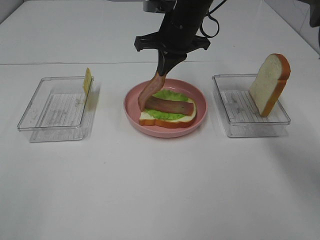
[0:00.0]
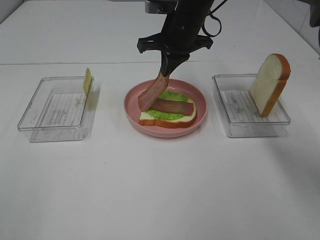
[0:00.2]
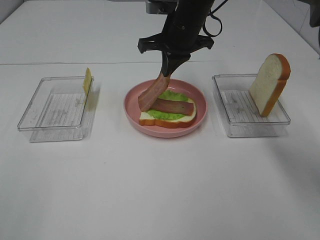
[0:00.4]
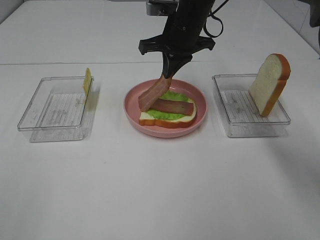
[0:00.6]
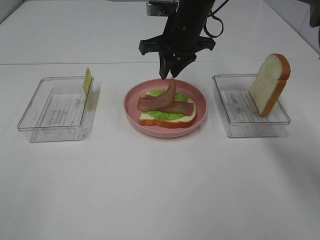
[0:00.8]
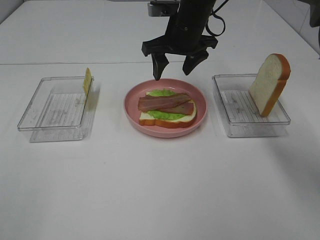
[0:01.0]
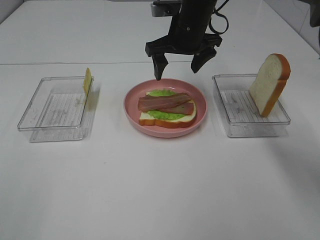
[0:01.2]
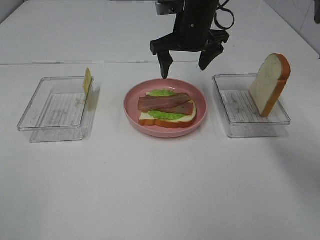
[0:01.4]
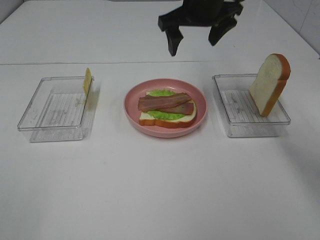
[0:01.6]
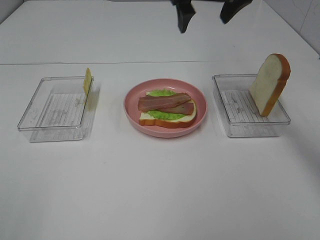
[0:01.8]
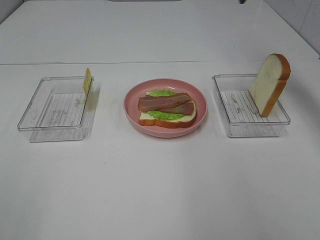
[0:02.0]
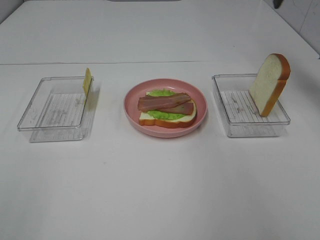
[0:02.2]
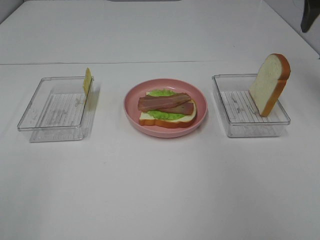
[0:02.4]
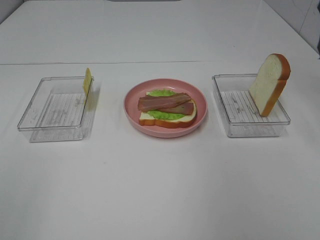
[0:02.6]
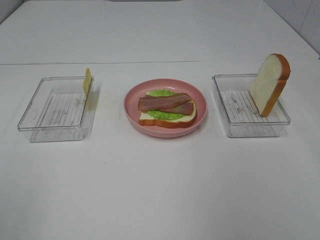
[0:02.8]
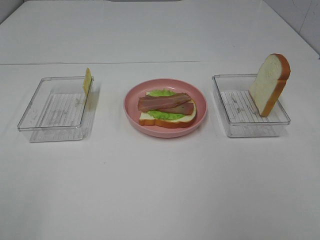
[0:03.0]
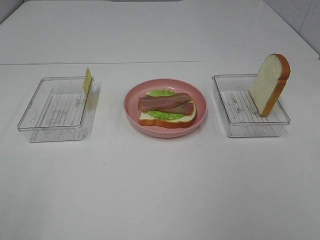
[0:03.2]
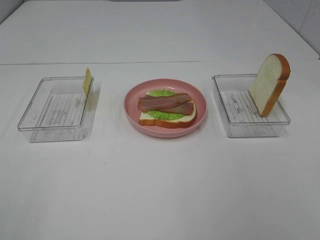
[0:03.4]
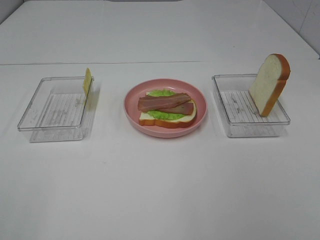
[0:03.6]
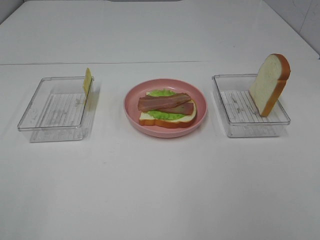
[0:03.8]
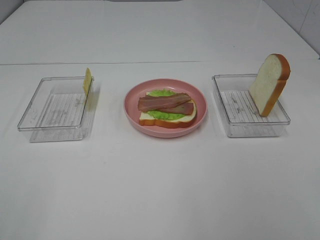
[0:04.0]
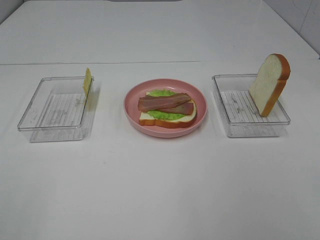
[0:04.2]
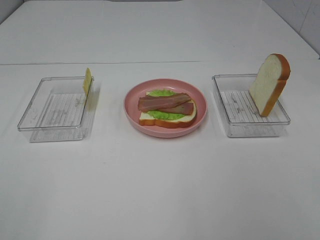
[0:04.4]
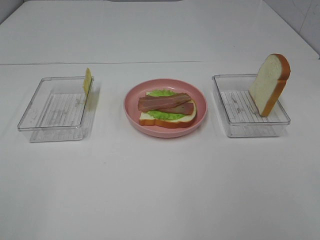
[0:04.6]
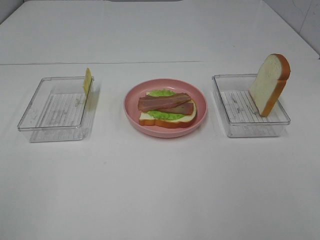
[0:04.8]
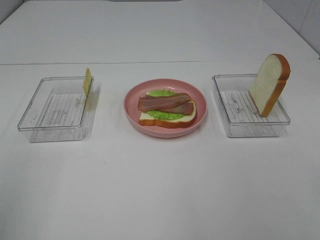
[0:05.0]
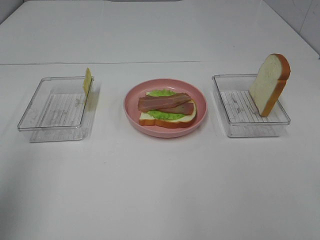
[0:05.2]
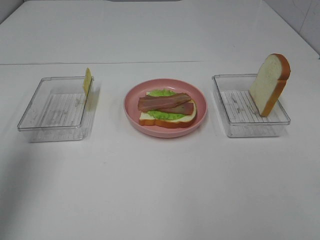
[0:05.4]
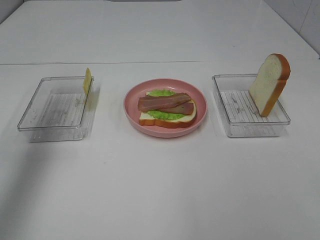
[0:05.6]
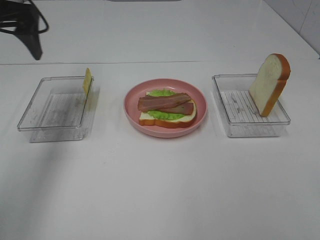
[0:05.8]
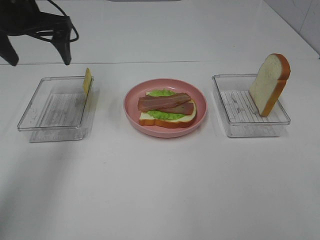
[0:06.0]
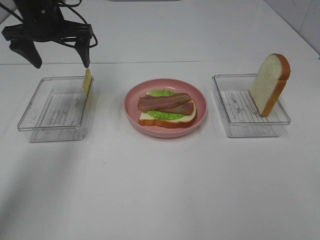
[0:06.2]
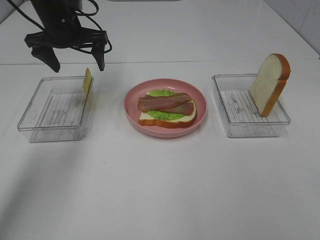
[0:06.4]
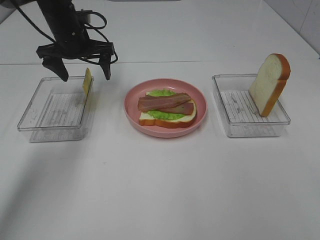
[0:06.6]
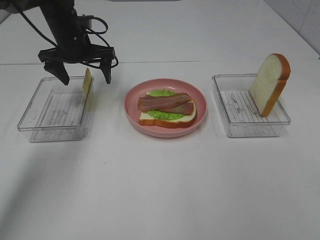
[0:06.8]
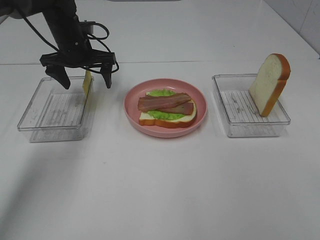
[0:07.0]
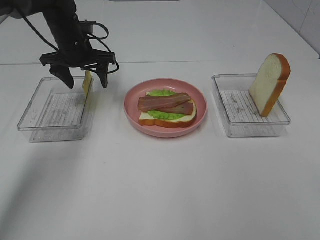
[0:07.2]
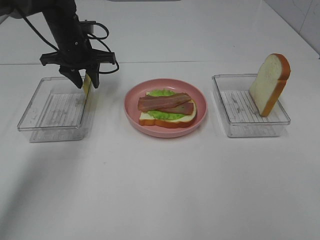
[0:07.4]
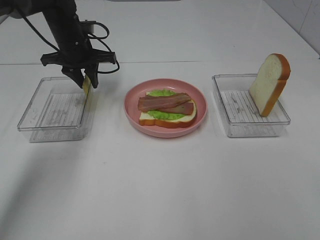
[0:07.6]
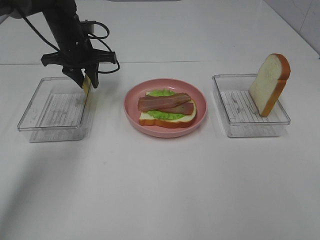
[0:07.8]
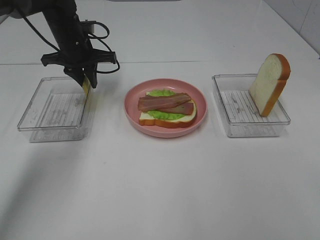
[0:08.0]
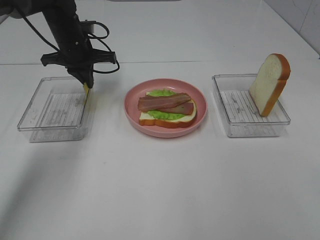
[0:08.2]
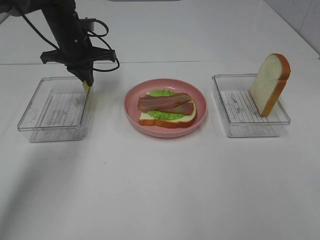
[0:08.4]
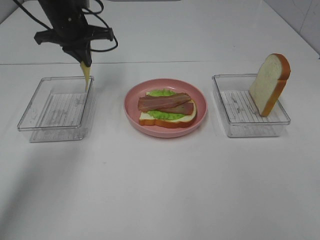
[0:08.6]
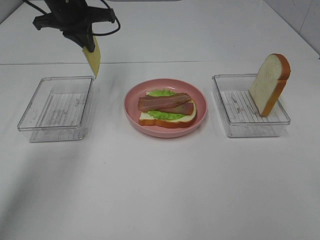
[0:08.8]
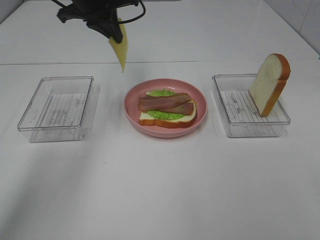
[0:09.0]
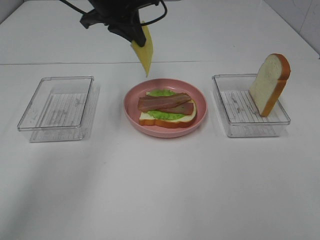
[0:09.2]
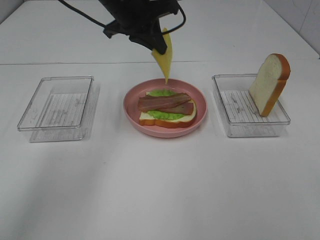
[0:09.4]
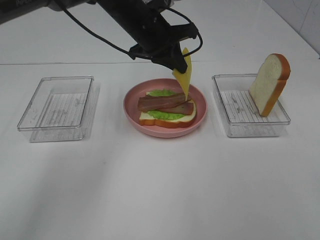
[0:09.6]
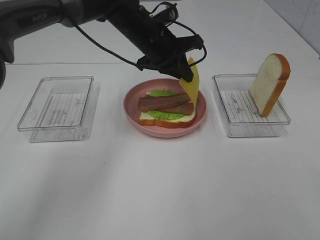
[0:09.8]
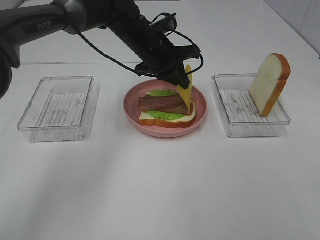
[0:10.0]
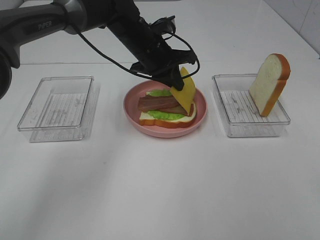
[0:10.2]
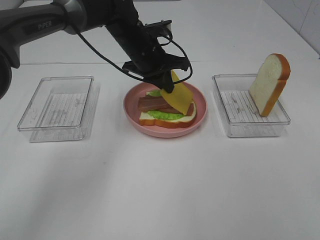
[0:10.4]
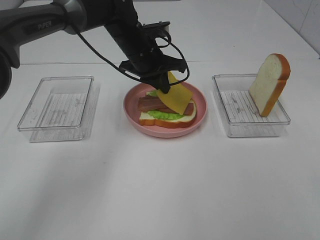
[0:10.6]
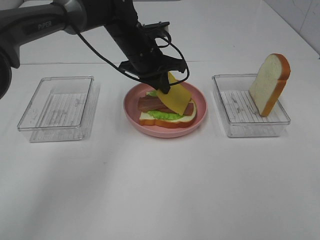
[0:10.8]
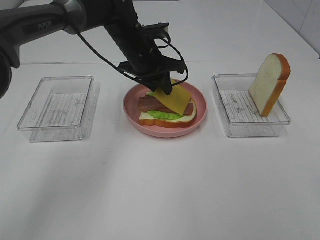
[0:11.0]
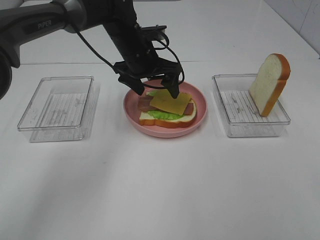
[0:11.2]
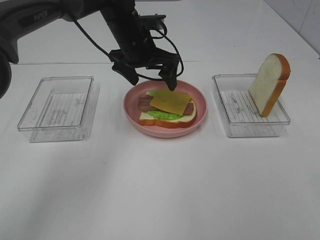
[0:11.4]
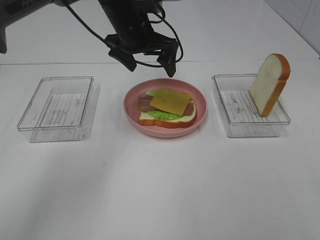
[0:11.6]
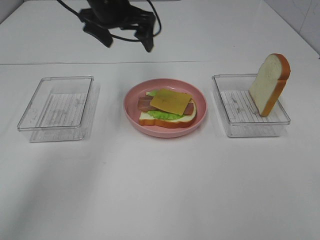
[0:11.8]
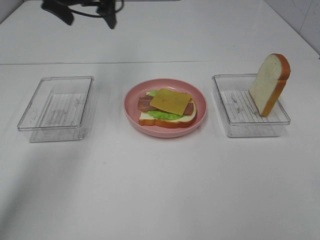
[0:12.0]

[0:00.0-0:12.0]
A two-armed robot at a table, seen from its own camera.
Task of the whole recording: Make sandwiches.
Step, 0:01.6 to 0:08.4: Left hand:grab the cheese slice.
Step, 0:08.6 to 0:11.4: Left hand:place the cheese slice on top of the bacon.
0:00.0 to 0:01.6: The right gripper goes roughly 5 cm upward, and opens up.
0:01.6 to 0:03.0: The right gripper goes about 40 cm backward and to the right.
0:04.4 to 0:06.0: The left gripper travels forward by roughly 40 cm.
0:06.0 to 0:07.6: The left gripper is displaced downward and forward by roughly 10 cm, and closes up.
0:07.6 to 0:09.0: The left gripper shifts about 15 cm upward and to the right.
0:09.0 to 0:10.4: The left gripper heads downward and to the right, covering about 15 cm.
0:10.4 to 0:12.0: The left gripper heads to the left and upward, covering some 20 cm, and opens up.

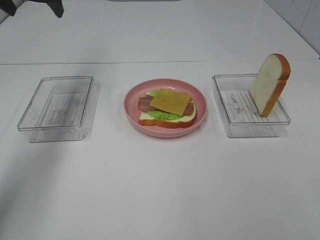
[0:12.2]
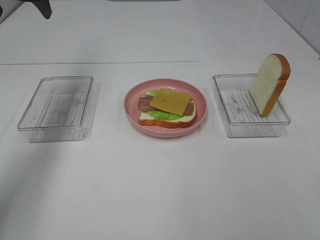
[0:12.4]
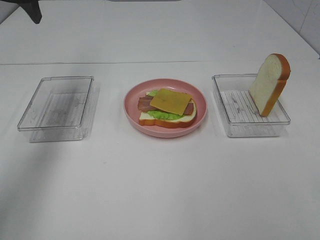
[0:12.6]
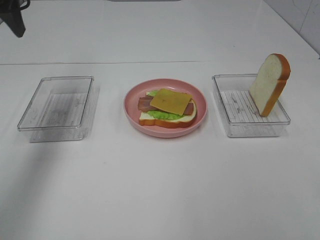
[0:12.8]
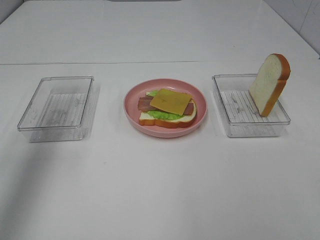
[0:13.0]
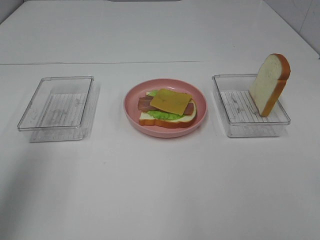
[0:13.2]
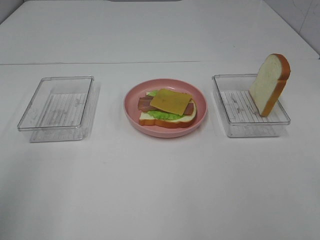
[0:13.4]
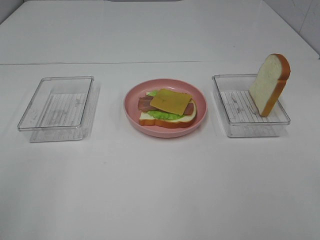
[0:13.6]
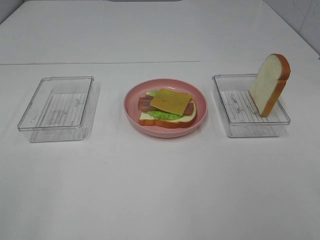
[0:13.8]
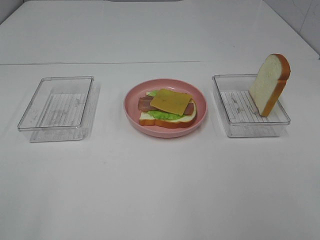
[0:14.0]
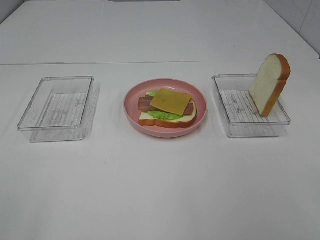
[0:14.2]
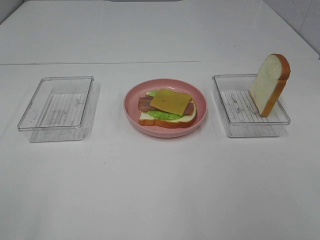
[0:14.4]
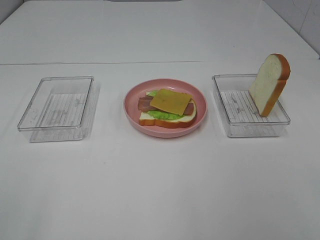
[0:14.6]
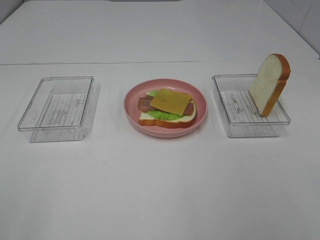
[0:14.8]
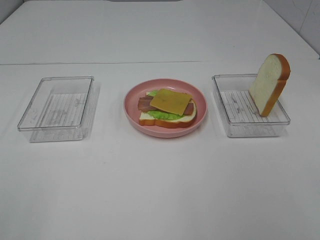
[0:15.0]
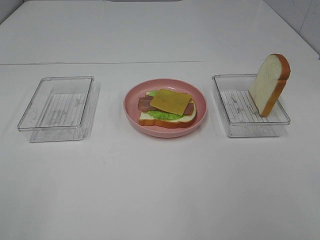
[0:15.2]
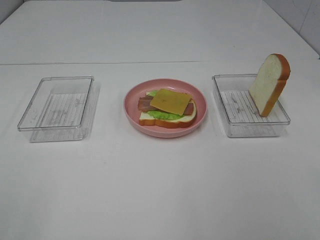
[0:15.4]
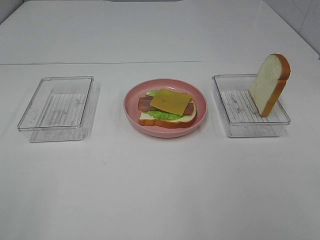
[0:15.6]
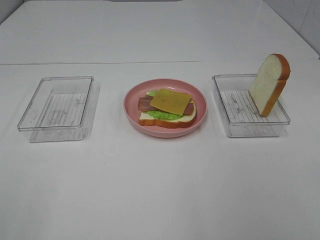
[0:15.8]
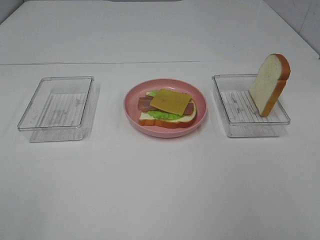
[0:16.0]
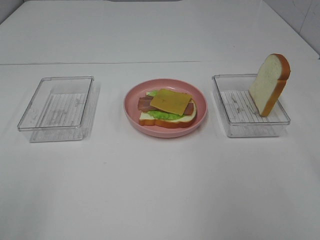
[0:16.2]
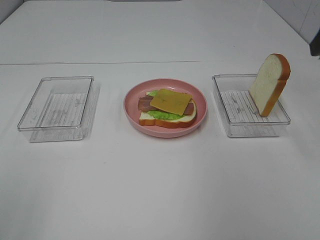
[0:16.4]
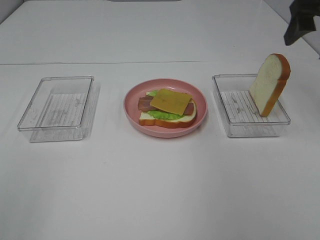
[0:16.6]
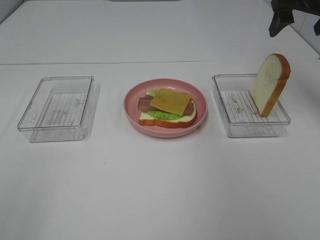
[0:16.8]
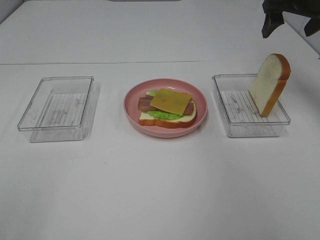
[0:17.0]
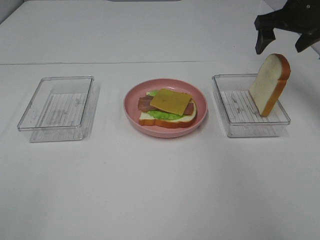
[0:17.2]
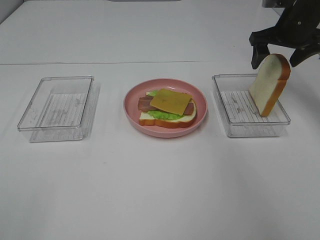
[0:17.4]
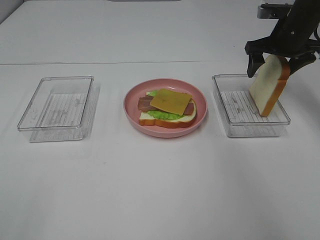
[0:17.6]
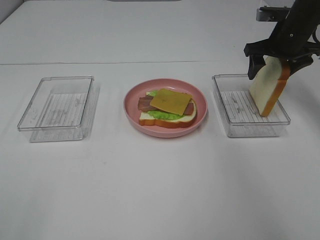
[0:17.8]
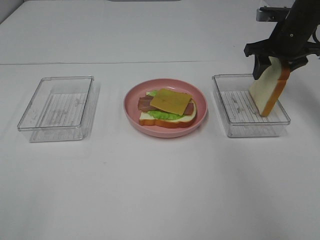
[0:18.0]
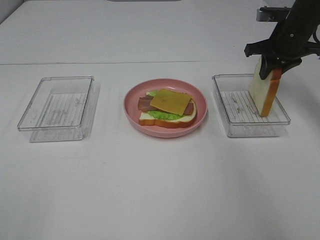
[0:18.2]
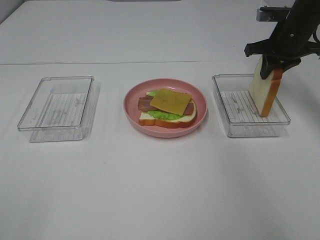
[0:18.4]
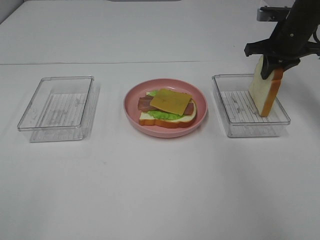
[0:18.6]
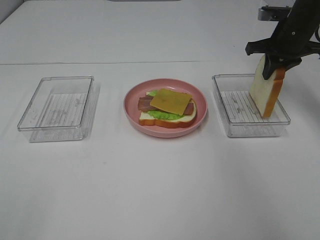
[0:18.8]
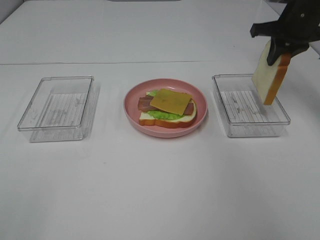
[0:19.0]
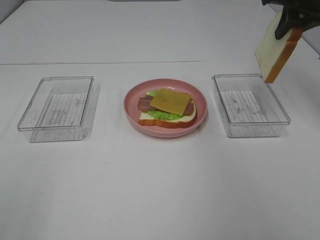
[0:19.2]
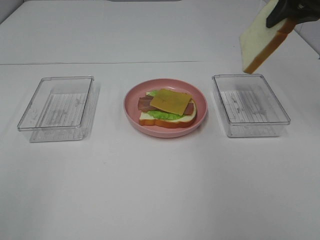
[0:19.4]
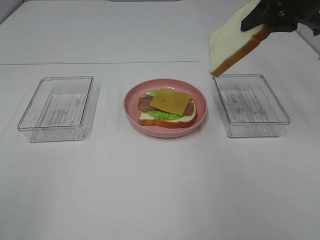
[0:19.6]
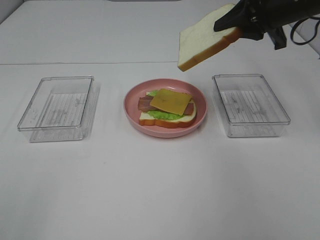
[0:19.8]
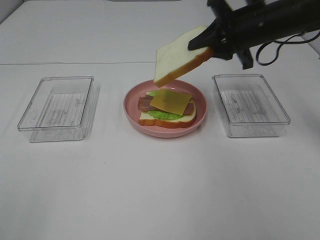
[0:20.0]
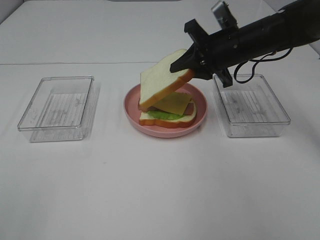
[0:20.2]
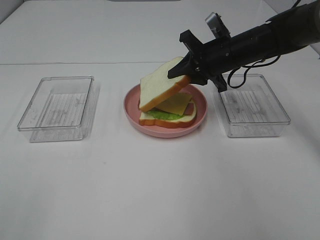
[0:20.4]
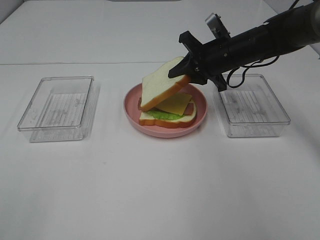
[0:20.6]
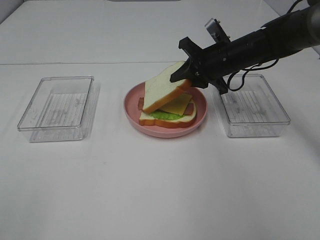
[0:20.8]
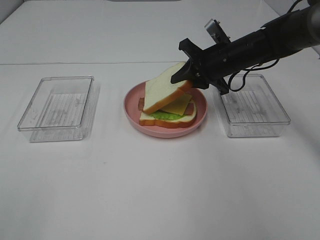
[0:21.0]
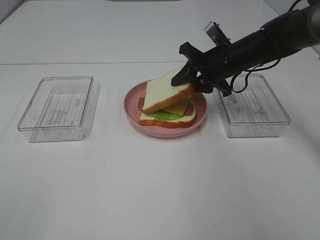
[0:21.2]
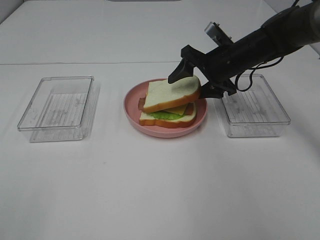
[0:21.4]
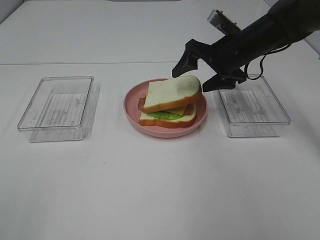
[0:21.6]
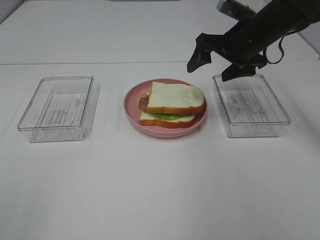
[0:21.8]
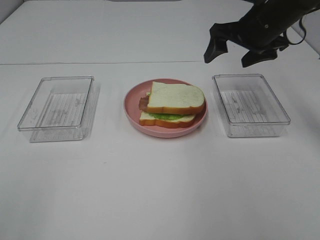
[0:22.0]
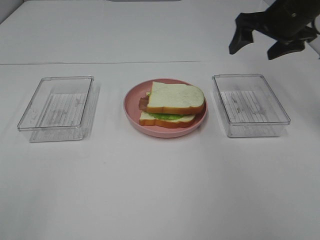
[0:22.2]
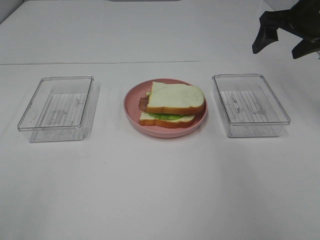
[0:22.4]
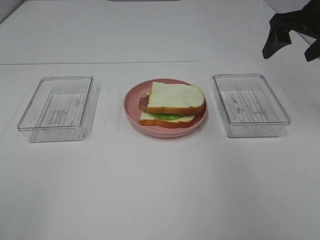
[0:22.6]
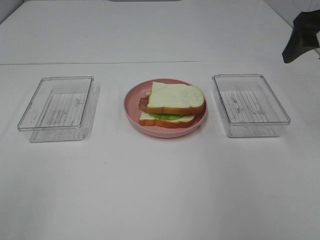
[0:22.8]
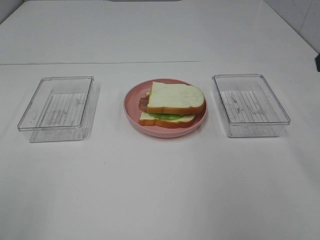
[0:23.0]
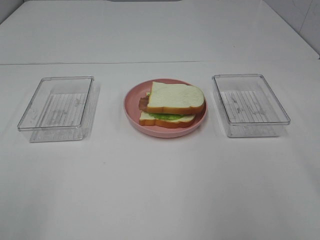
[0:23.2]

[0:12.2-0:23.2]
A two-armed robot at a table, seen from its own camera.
Task of the whole recording: Make sandwiches.
Step, 0:12.2 to 0:18.6: Right hand:grab the bread slice.
Step, 0:18.8 to 0:21.6: Right hand:place the bread slice on the cheese slice.
0:12.2 to 0:13.8: The left gripper shifts about 50 cm backward.
0:15.4 to 0:17.0: The right gripper shifts some 40 cm forward.
0:17.0 to 0:18.4: The right gripper shifts about 10 cm downward, and closes.
0:18.4 to 0:20.0: The right gripper is displaced to the left and backward by about 10 cm, and goes upward and returns, approximately 15 cm each way.
0:20.0 to 0:21.6: The right gripper opens.
0:21.6 to 0:23.2: The right gripper is displaced backward, upward and to the right by approximately 35 cm.
